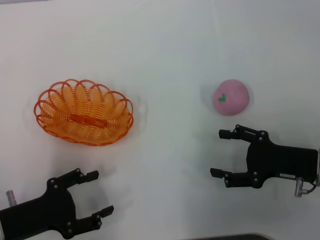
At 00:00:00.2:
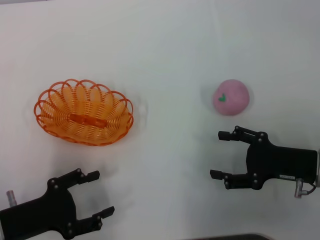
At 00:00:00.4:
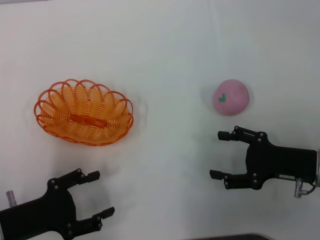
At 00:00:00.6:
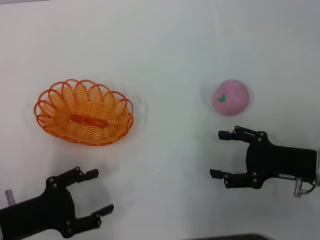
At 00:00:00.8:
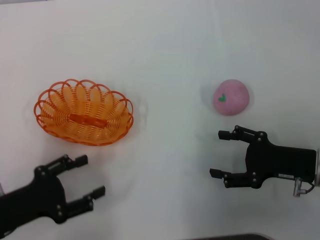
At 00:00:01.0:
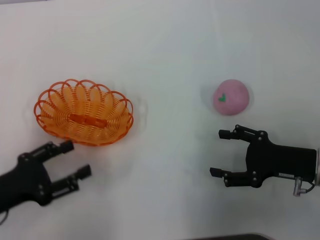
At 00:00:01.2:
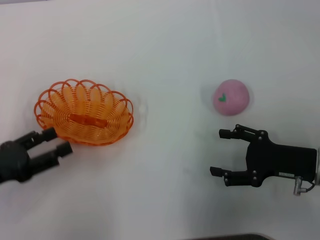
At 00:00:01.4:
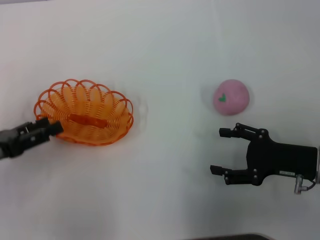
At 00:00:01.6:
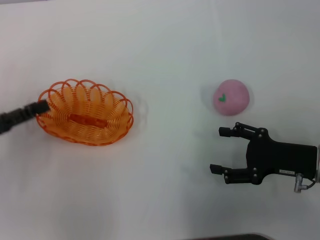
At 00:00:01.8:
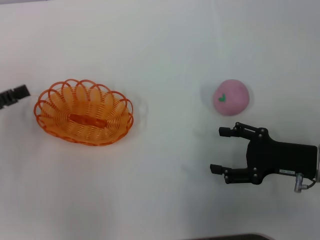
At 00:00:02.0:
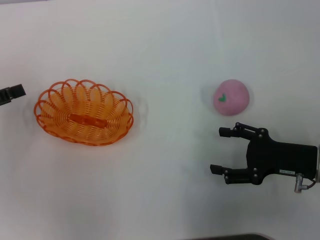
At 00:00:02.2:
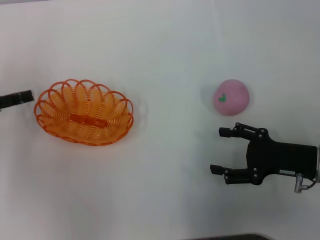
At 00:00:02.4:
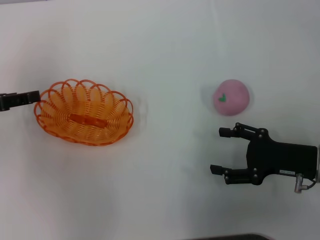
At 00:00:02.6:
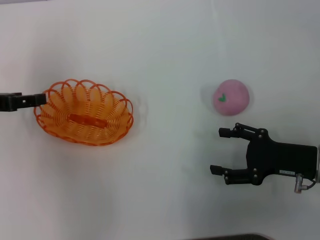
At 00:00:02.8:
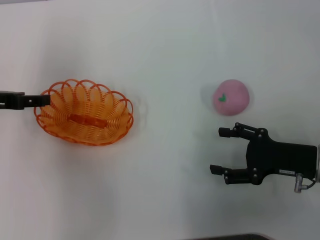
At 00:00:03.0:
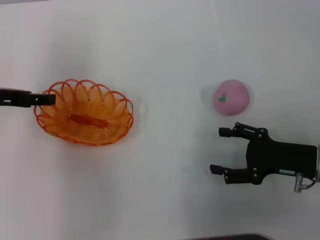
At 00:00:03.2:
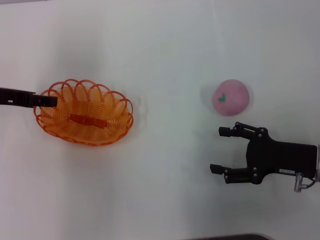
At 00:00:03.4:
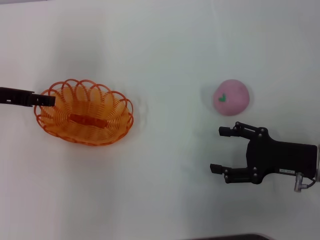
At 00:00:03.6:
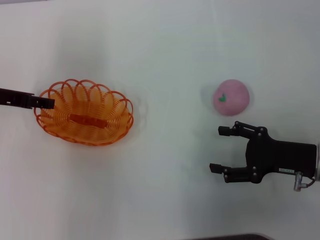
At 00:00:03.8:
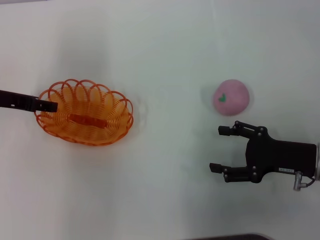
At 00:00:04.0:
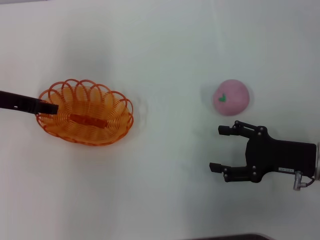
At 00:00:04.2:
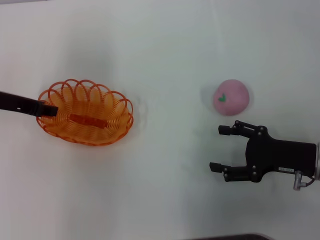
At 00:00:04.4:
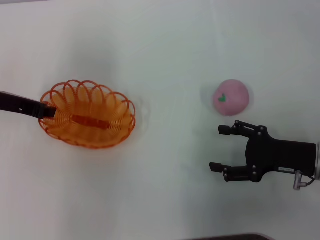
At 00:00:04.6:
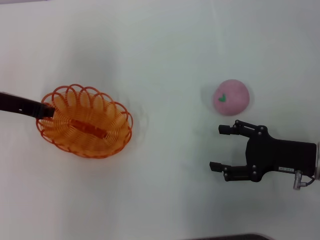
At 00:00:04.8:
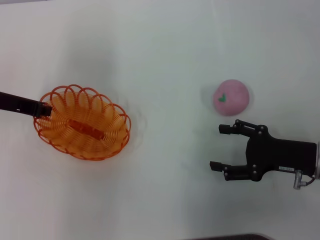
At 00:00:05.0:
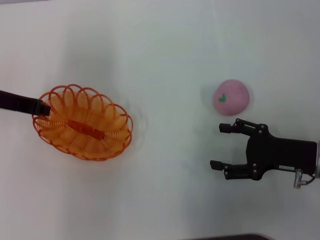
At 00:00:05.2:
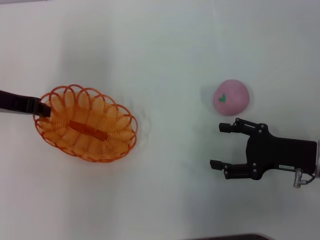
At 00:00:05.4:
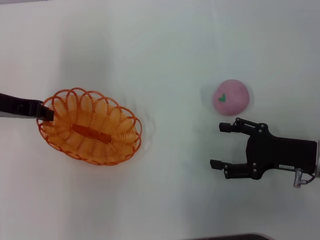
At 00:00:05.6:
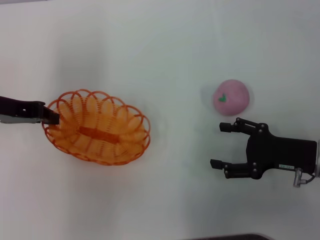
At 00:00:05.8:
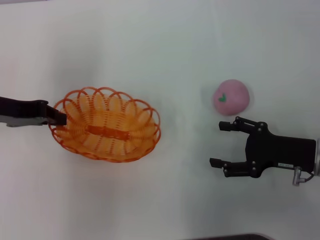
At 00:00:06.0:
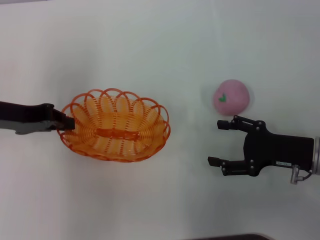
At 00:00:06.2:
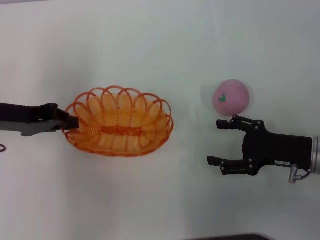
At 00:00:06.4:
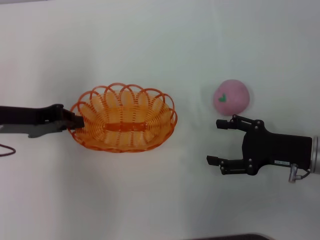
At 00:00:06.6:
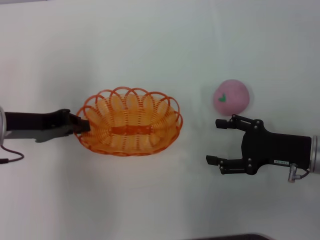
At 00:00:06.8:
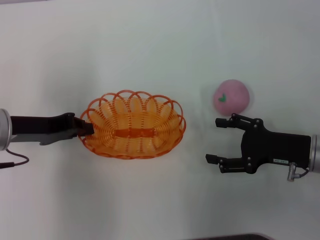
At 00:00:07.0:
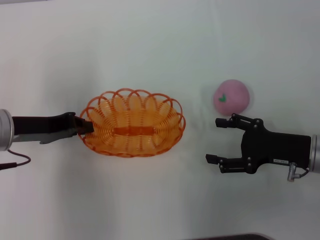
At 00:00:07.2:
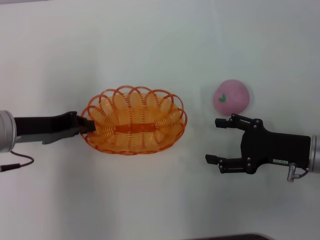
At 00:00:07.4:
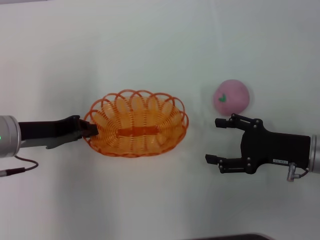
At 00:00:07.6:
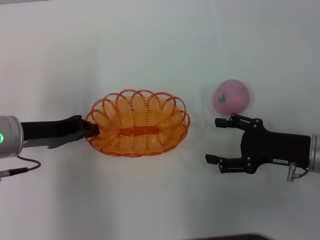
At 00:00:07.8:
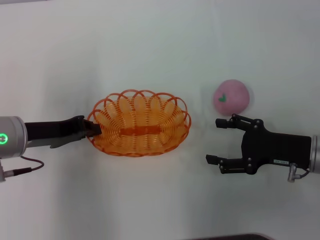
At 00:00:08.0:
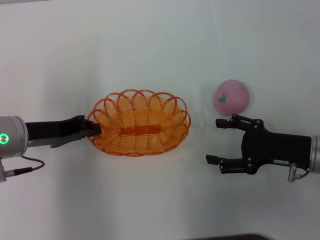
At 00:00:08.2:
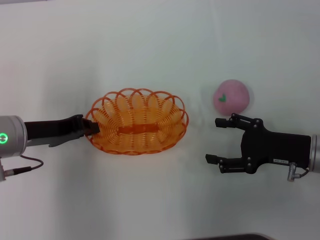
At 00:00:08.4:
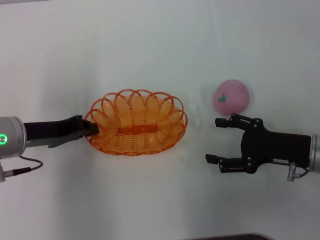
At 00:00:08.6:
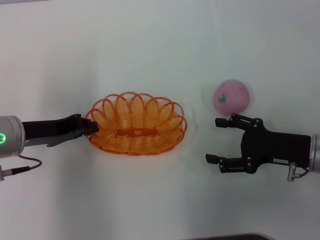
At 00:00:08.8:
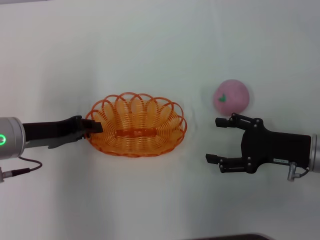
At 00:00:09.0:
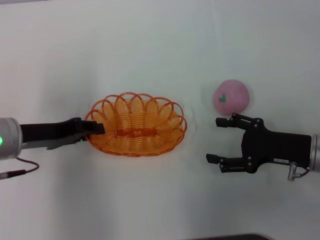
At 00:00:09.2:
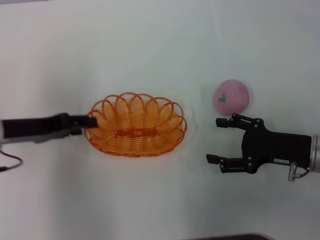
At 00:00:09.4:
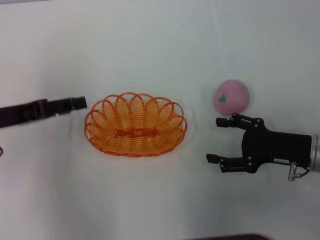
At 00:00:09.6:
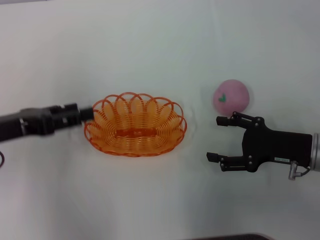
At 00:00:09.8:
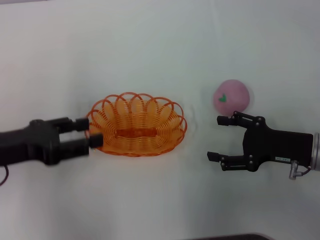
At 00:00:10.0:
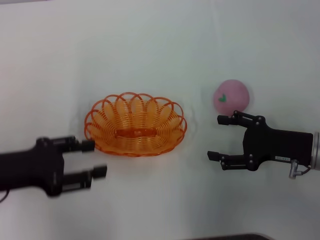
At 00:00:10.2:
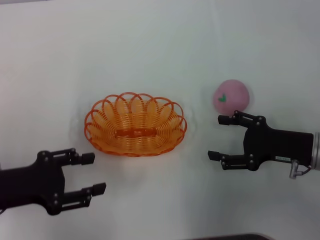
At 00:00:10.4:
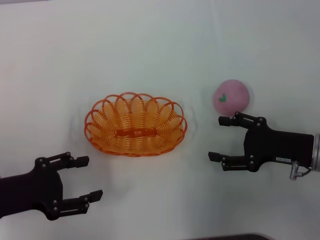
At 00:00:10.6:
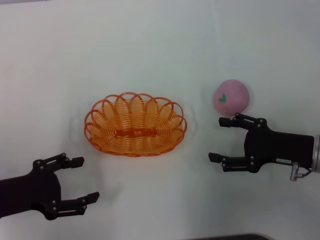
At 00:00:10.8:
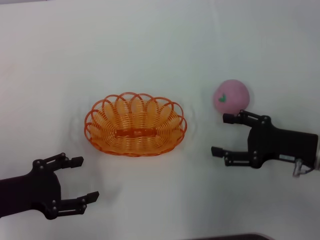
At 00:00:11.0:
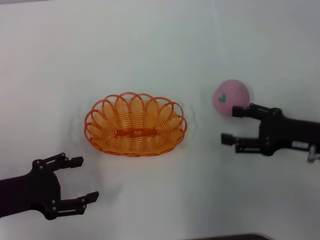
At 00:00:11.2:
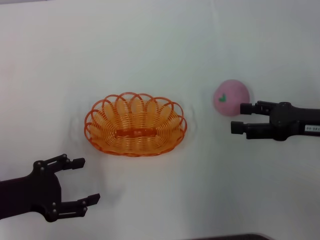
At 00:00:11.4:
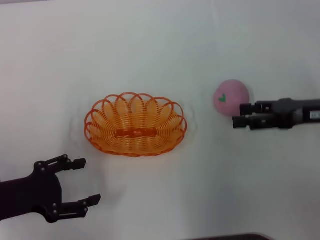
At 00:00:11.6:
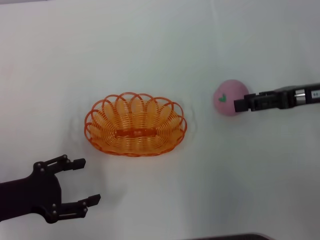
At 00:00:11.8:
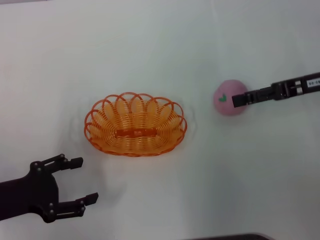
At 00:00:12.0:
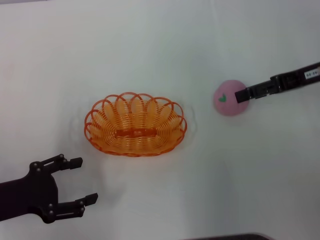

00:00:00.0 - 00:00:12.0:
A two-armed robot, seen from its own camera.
Step, 00:00:00.0 - 00:00:05.2: Pick up the basket with the left gripper.
Step, 00:00:05.4 - 00:00:10.4: Place the basket in the center of view with the left gripper.
00:00:00.0 - 00:00:01.6: The left gripper is displaced forward, upward and to the left by approximately 10 cm.
00:00:01.6 - 00:00:03.0: The left gripper moves forward, approximately 10 cm.
00:00:03.0 - 00:00:04.4: The left gripper closes up.
00:00:04.4 - 00:00:06.0: The left gripper closes.
00:00:06.0 - 00:00:07.6: The left gripper changes place by roughly 5 cm.
00:00:07.6 - 00:00:09.0: Both grippers stay about where they are.
00:00:09.0 - 00:00:10.4: The left gripper goes approximately 10 cm backward, and opens its fingers.
00:00:10.4 - 00:00:12.0: The right gripper shifts approximately 15 cm upward and forward.

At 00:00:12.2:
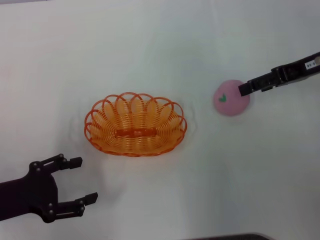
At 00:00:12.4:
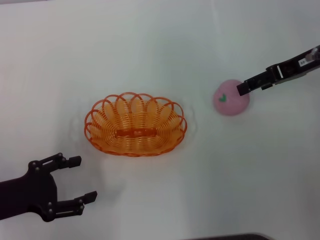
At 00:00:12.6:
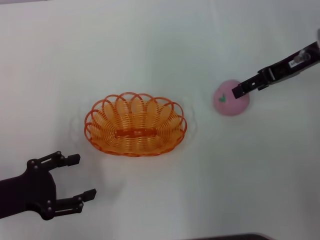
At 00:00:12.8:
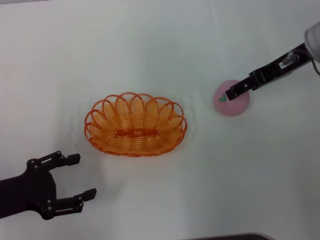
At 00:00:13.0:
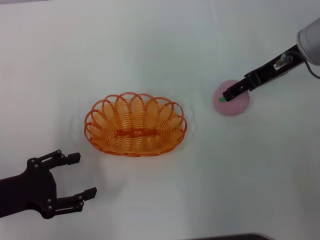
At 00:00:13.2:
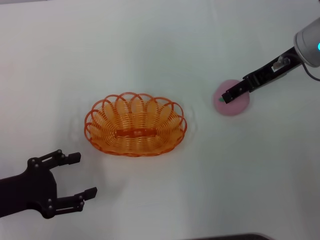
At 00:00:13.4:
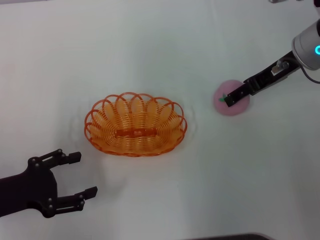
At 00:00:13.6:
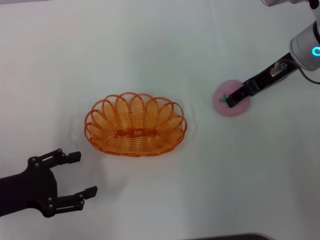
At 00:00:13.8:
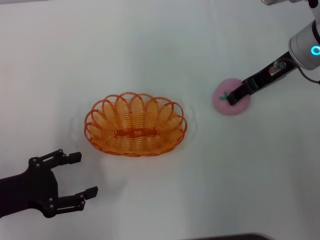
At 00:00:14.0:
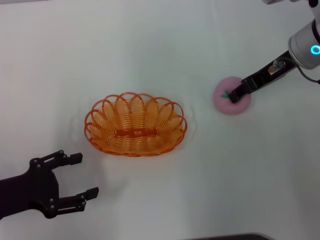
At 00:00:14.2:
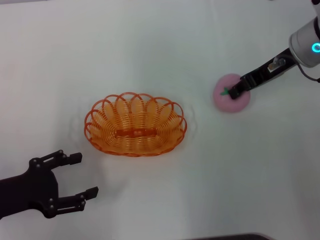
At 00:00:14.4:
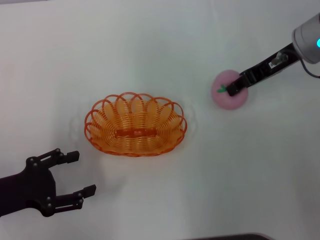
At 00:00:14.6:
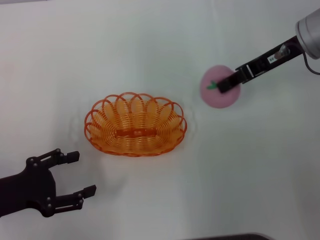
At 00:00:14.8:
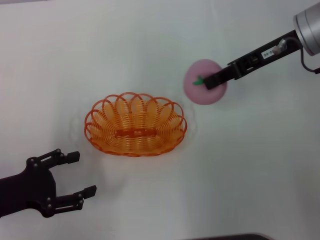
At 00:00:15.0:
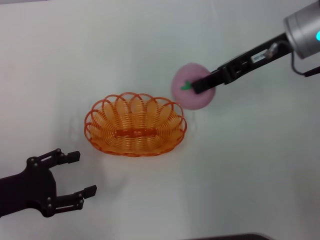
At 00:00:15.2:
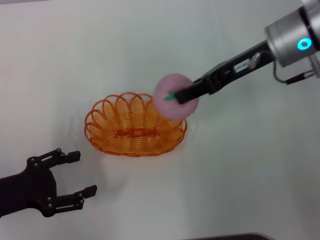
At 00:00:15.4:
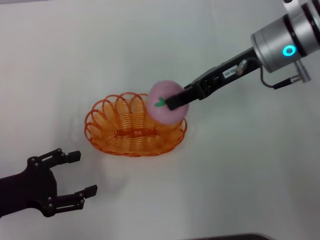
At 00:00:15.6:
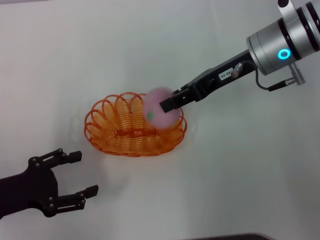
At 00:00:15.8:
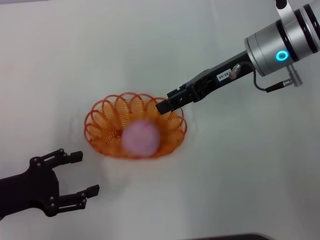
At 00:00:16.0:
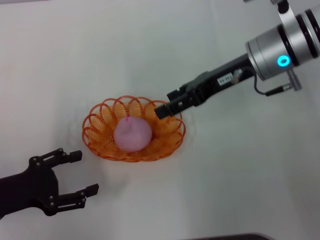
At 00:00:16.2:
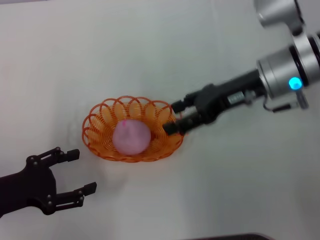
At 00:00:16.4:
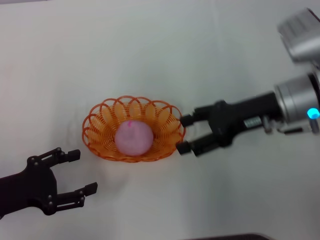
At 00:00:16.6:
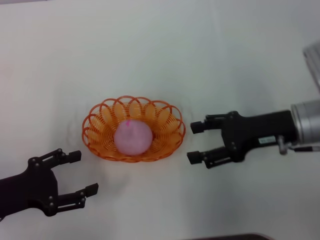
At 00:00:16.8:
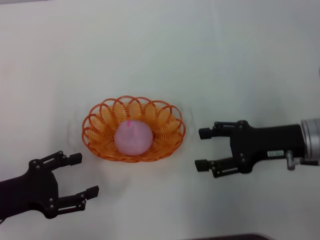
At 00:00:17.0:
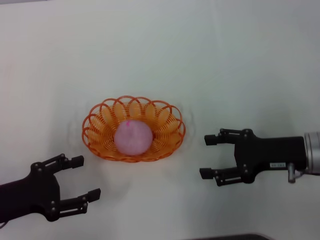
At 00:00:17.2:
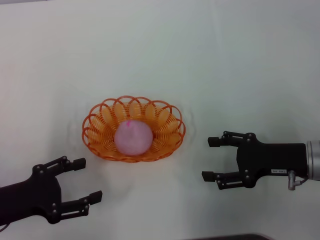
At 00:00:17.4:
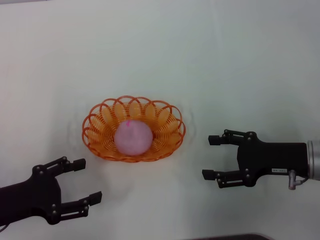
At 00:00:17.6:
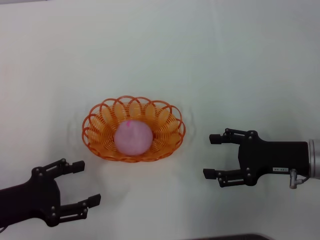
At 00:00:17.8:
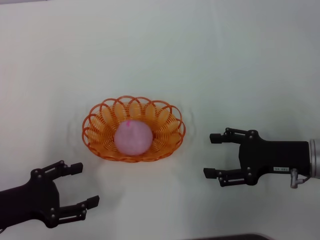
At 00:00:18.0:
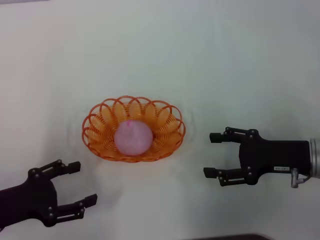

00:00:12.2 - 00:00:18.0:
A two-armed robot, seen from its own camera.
Step, 00:00:12.2 - 00:00:14.6: Pick up the peach with the right gripper.
Step, 00:00:14.8 - 00:00:16.6: Place the peach into the basket with the right gripper.
00:00:12.2 - 00:00:13.6: The right gripper goes approximately 5 cm to the left.
00:00:13.6 - 00:00:15.0: The right gripper closes its fingers.
00:00:15.0 - 00:00:16.6: The right gripper travels downward and backward by approximately 15 cm, and opens up.
00:00:16.6 - 00:00:18.0: The right gripper shifts by some 5 cm.
